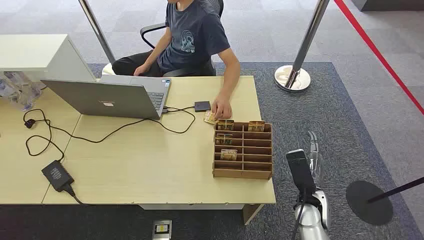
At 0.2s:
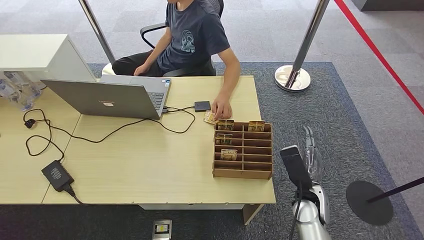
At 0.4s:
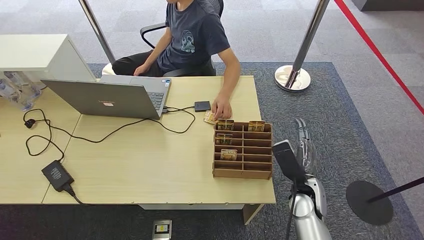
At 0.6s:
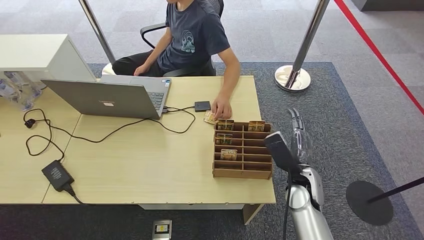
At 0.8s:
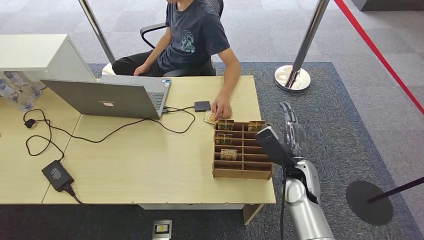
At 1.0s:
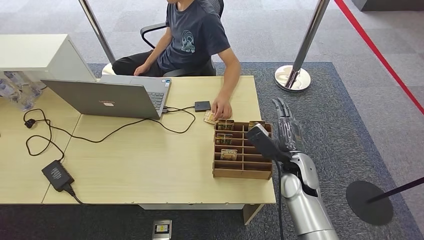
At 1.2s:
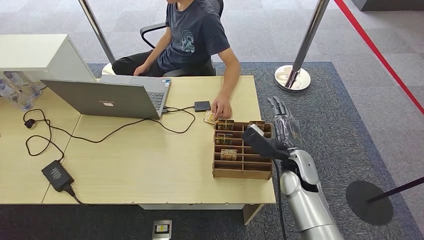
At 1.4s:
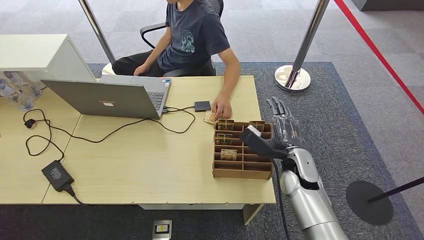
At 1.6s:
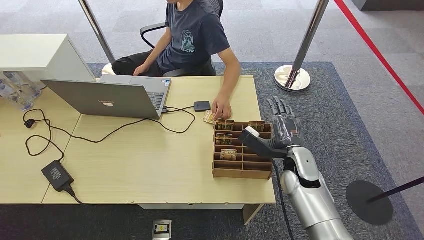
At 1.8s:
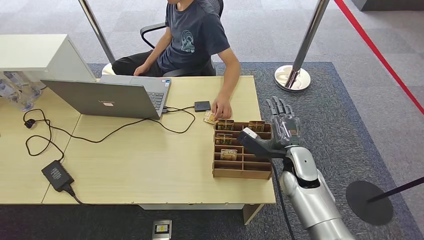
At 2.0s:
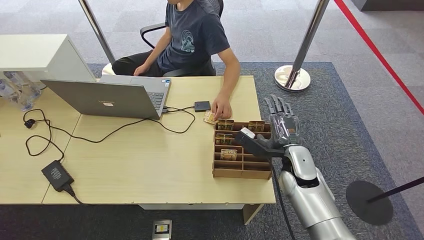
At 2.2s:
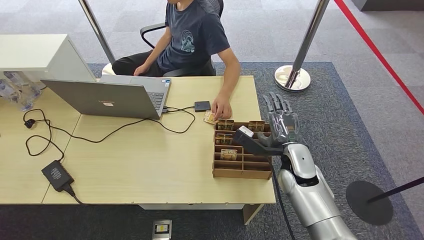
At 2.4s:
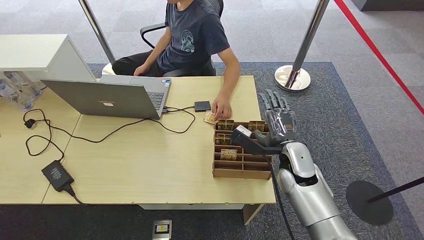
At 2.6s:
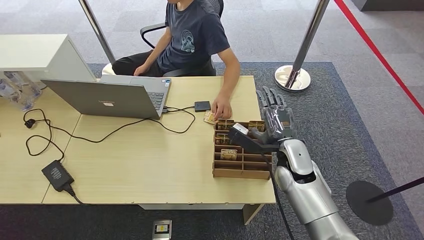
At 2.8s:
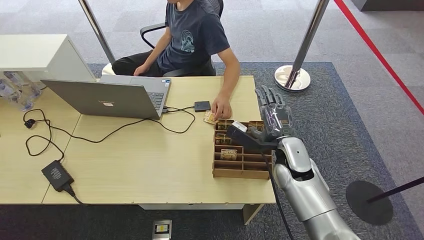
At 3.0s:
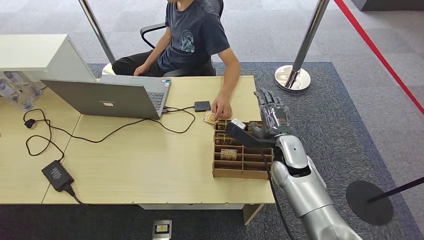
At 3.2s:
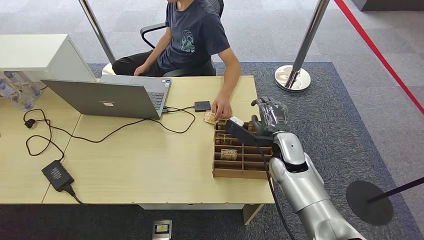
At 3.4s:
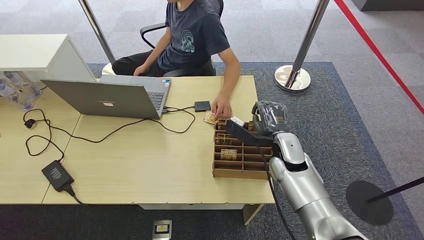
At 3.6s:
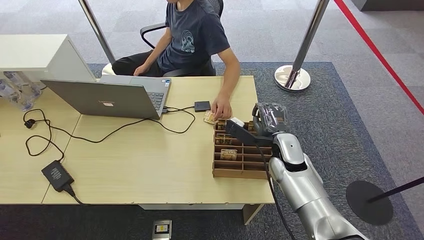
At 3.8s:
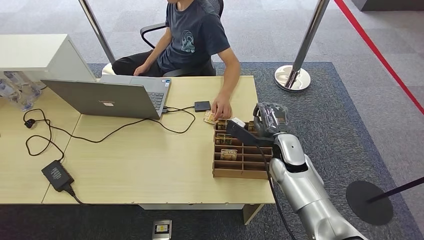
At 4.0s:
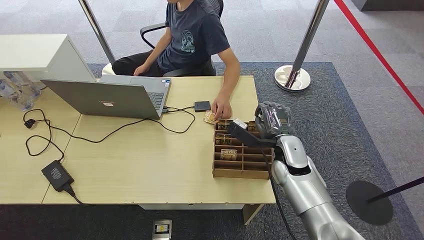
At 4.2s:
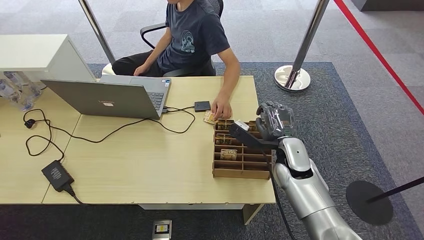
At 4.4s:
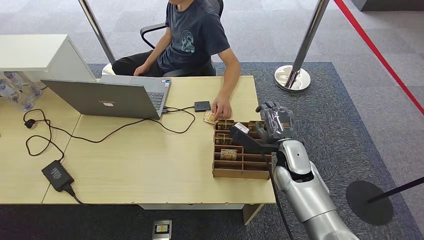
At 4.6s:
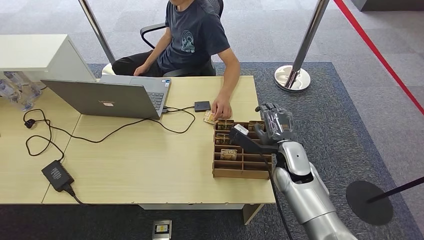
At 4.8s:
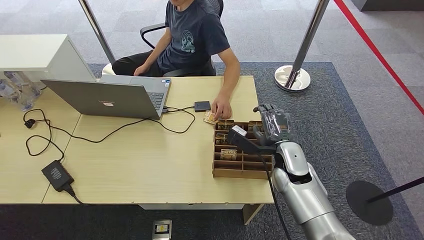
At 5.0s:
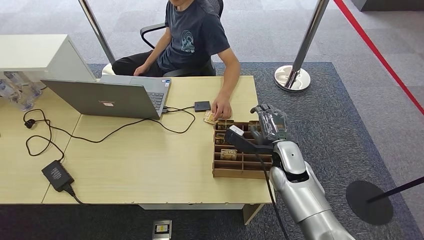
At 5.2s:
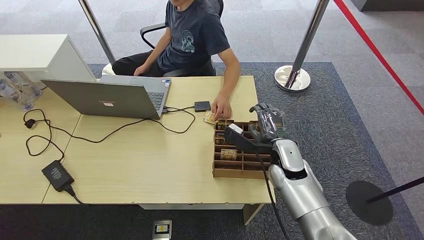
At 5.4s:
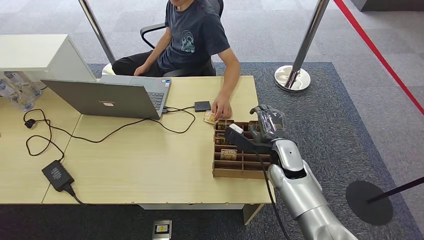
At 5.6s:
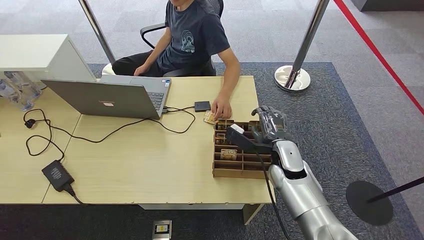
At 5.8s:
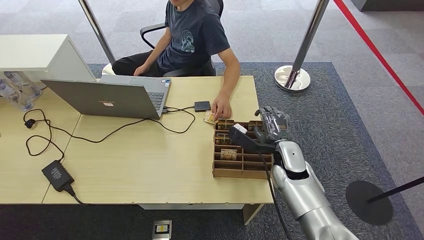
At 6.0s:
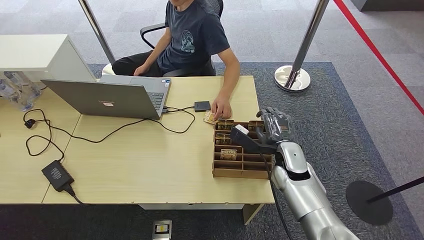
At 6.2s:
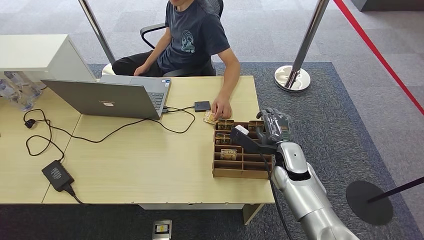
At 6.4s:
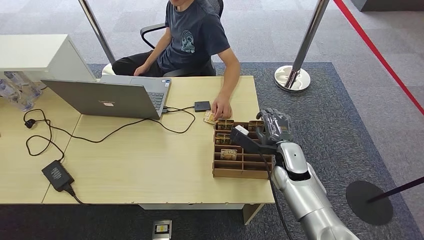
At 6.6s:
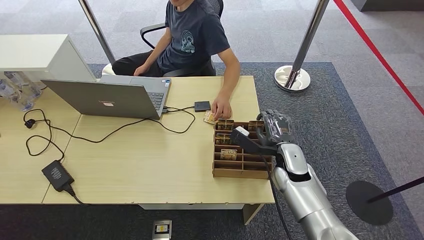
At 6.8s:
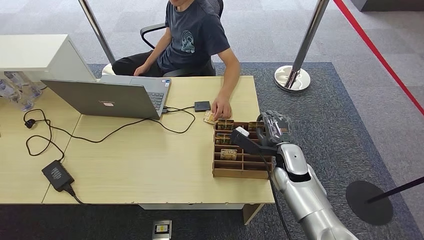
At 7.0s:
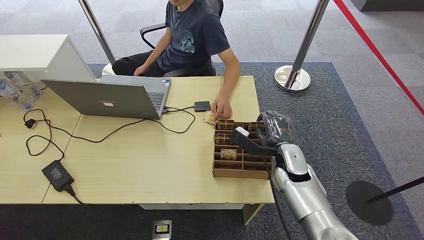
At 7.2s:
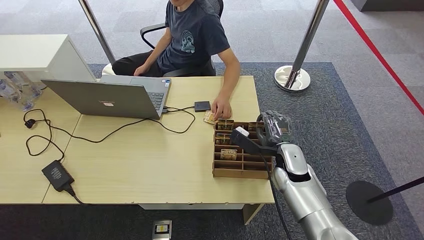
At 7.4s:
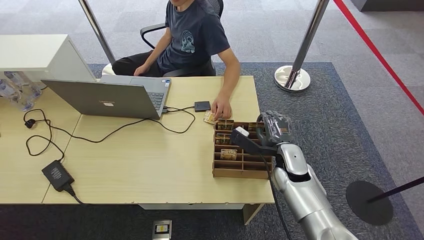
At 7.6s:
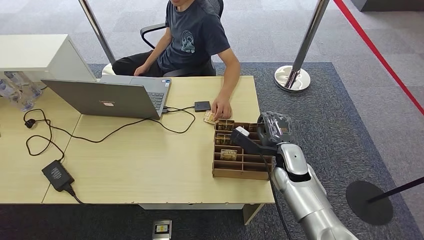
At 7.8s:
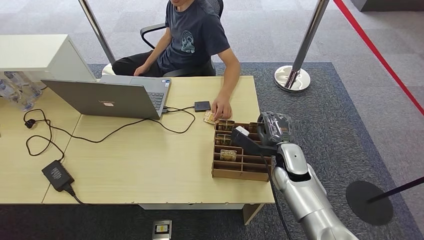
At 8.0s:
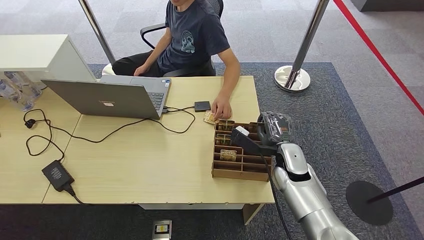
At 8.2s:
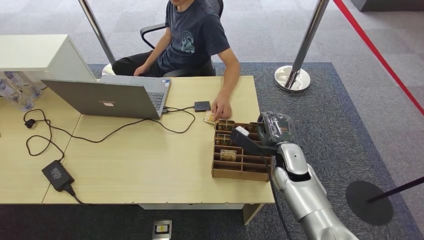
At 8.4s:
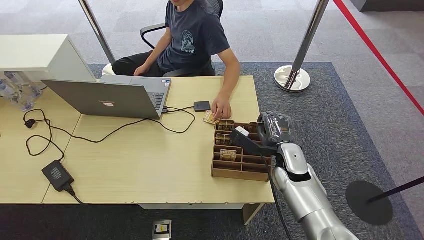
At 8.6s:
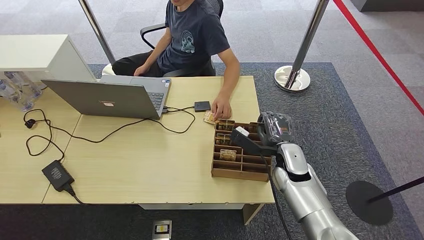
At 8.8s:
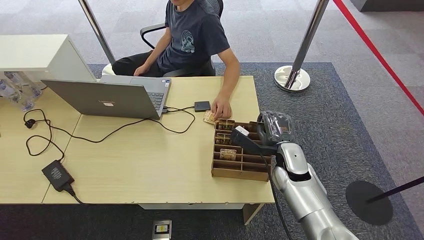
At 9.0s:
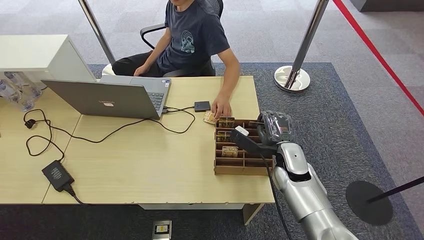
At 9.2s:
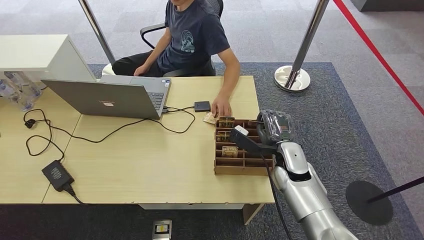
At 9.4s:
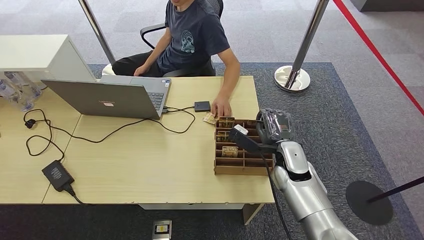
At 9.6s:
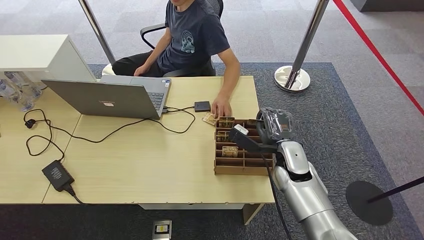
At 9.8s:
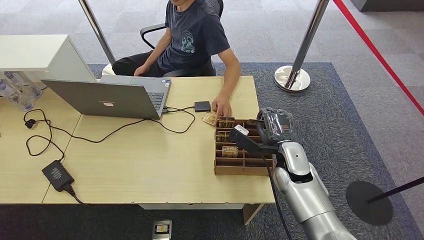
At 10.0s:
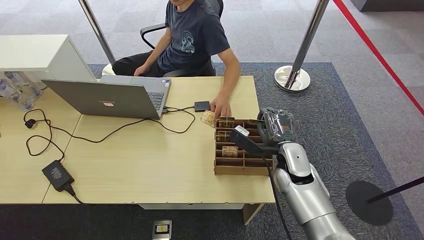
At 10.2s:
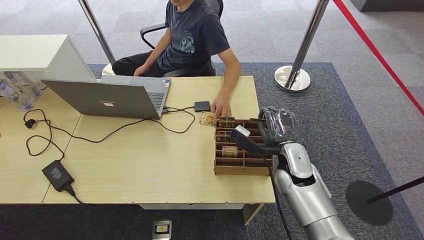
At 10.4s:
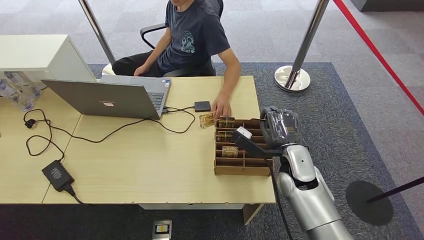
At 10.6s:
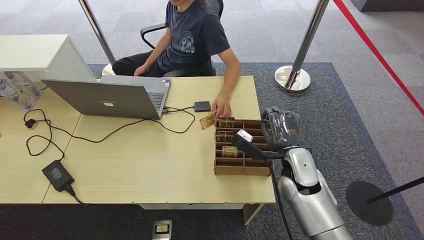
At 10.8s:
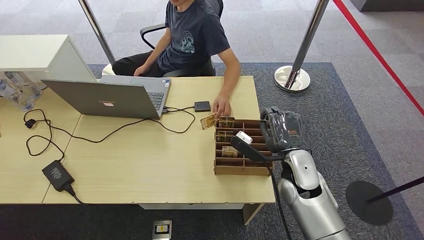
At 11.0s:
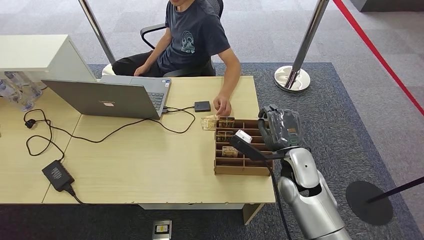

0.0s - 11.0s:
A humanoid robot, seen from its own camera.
Step, 0.0s - 8.2s: Pick up the key card from the card box.
Step, 8.4s - 11.0s: Hand the key card to the target.
1.6s - 3.2s: The right hand changes place by roughly 5 cm.
3.2s - 6.2s: The hands stay close to where they were, moving slightly.
6.2s - 9.4s: Both hands stay put.
9.4s - 11.0s: The hands stay close to where they were, moving slightly.

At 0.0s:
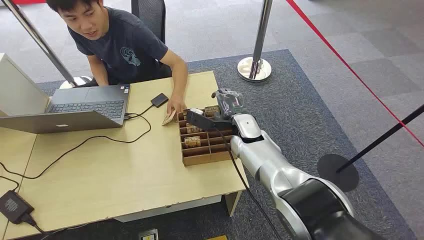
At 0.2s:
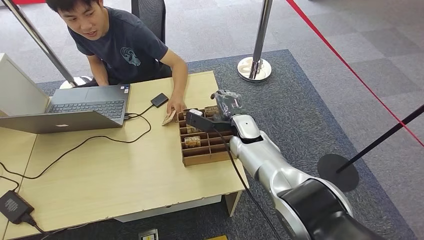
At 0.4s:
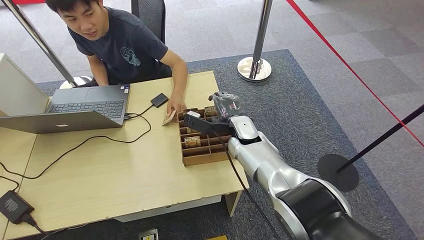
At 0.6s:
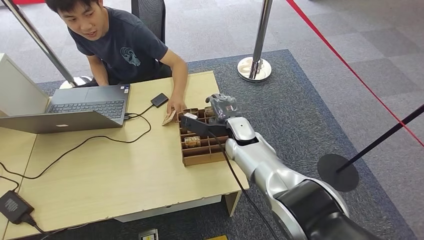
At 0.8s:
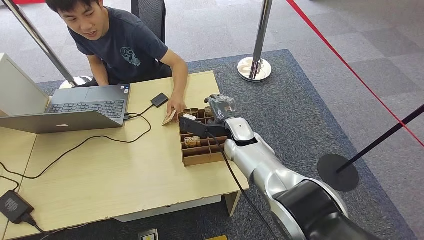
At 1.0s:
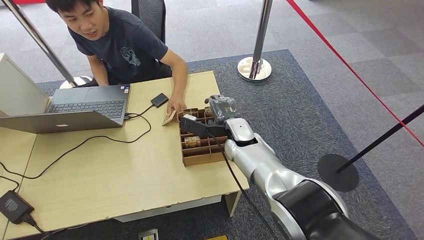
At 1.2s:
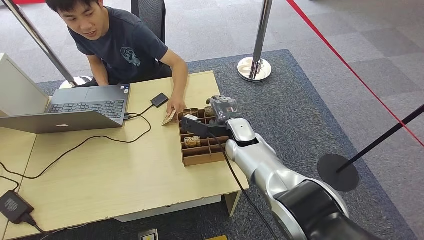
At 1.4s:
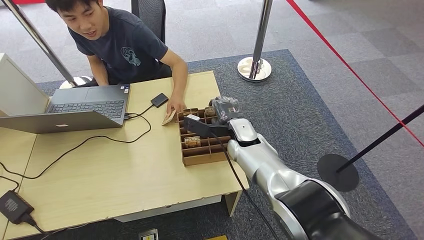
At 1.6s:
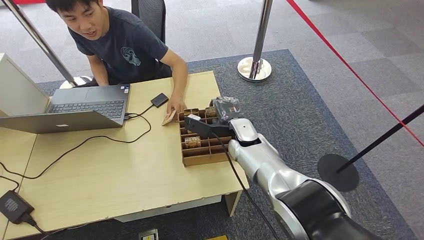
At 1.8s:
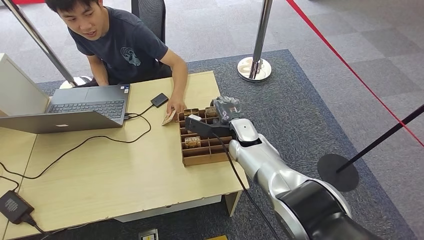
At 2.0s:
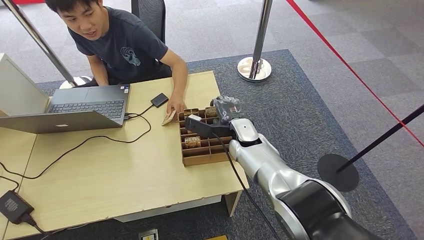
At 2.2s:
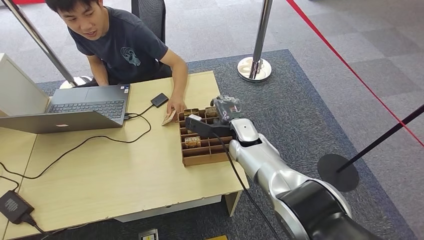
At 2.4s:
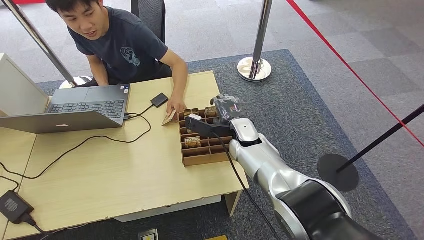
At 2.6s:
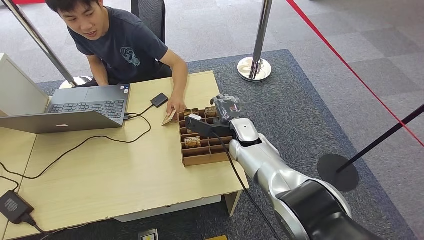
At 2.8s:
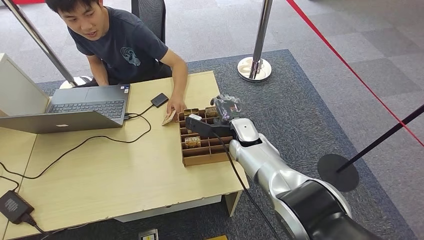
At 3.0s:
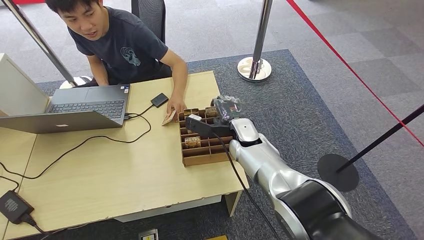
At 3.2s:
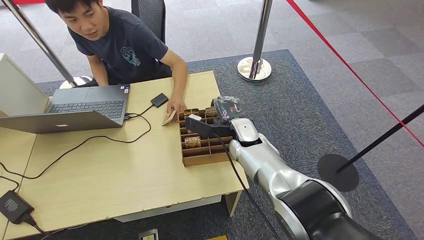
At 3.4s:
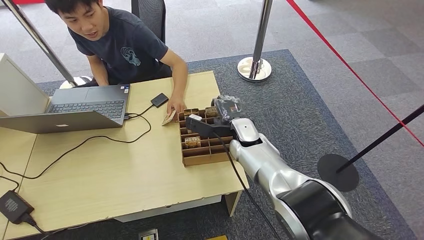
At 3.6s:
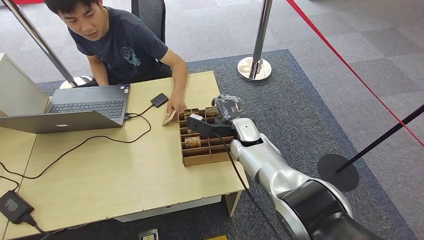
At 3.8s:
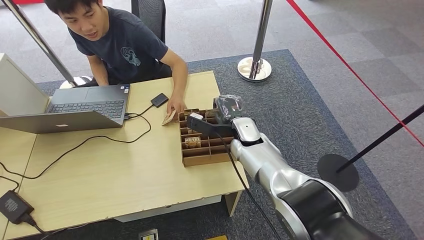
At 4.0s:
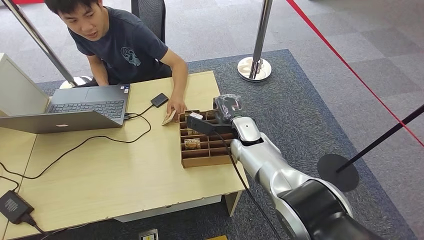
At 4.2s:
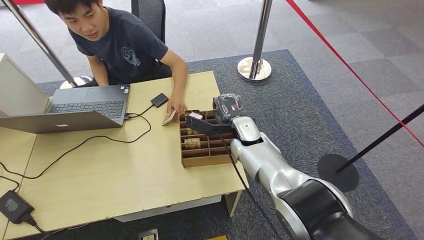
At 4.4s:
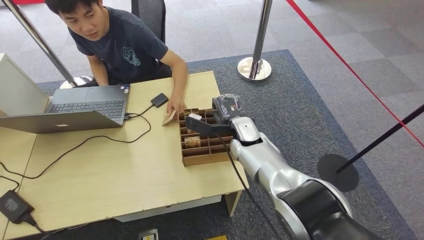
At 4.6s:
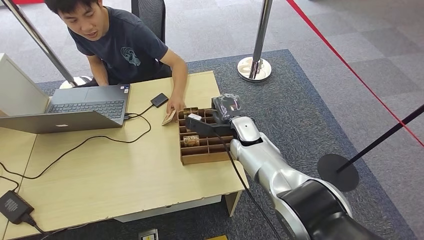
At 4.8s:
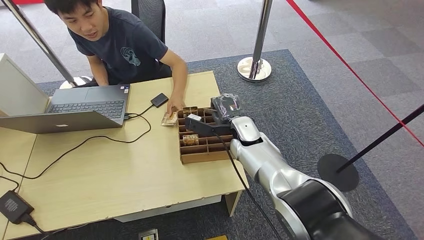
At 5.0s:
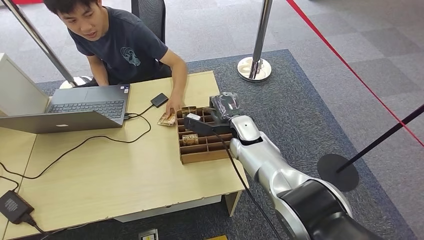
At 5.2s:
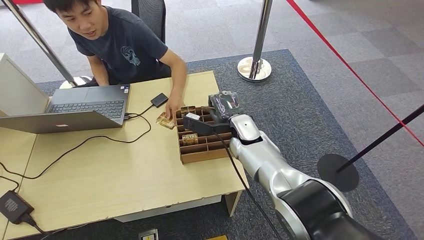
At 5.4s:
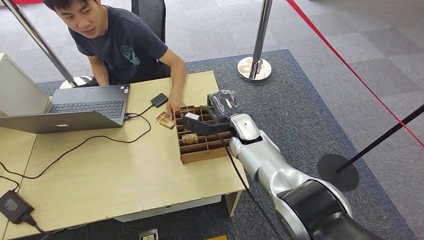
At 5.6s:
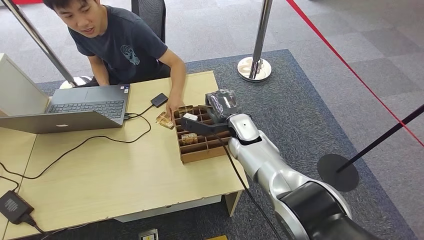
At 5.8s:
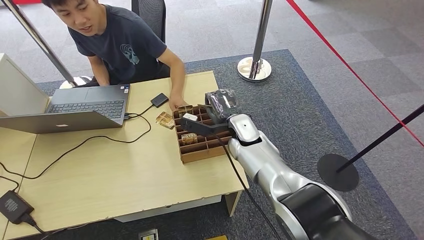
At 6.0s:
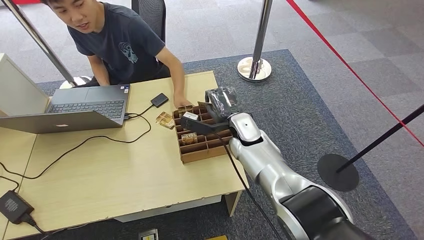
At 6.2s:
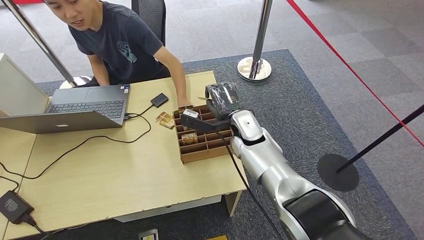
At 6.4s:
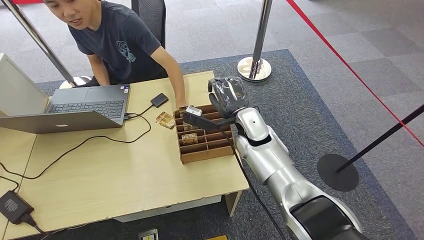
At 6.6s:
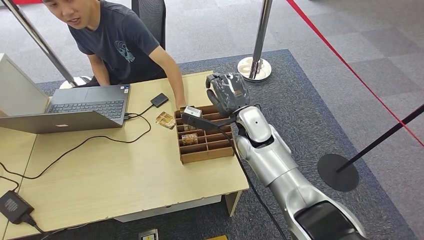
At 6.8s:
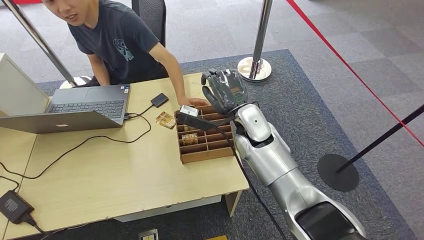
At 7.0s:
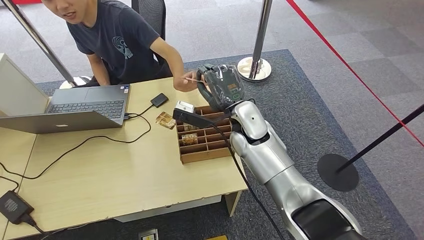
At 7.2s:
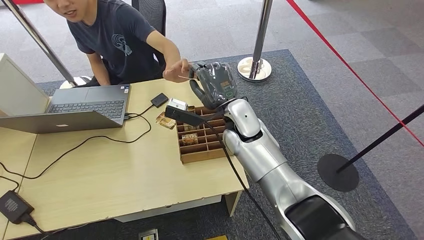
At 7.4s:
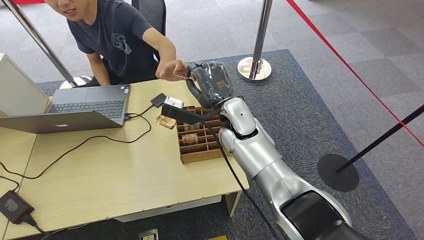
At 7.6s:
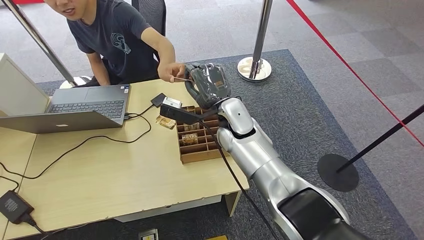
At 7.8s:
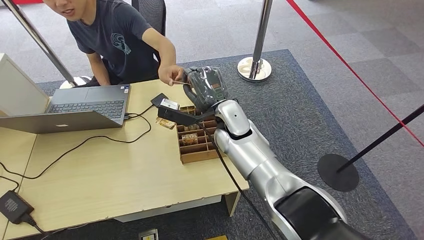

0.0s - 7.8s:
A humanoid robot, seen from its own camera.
Step, 0.0s - 6.4s: Pick up the key card from the card box.
1.6s - 4.6s: Neither hand changes place.
4.6s - 6.2s: The hands stay close to where they were, moving slightly.
6.2s - 7.8s: The right hand changes place by some 5 cm.
